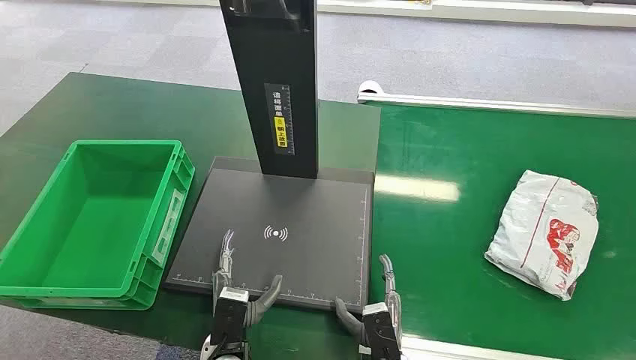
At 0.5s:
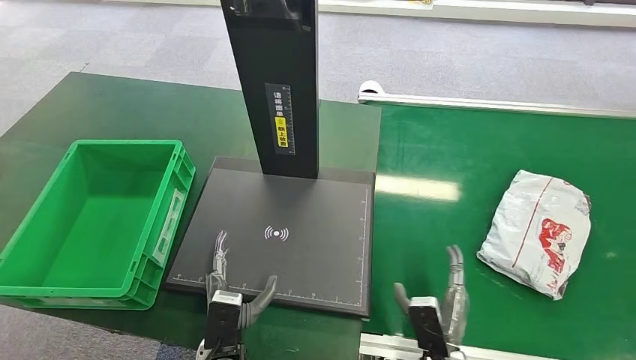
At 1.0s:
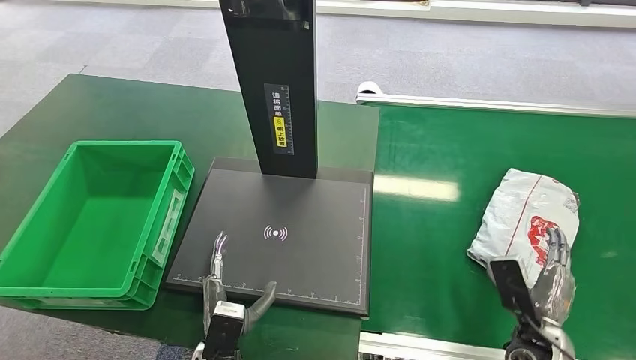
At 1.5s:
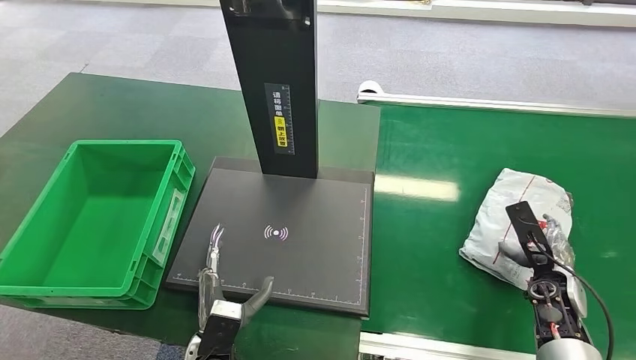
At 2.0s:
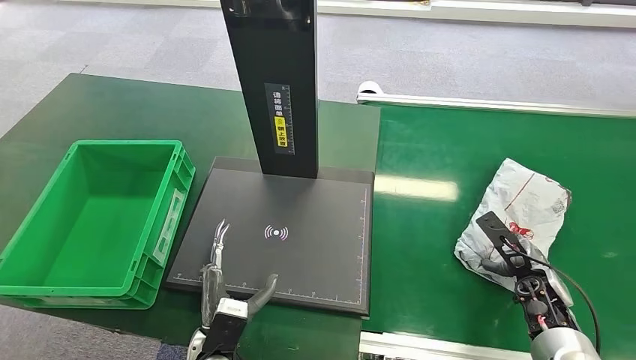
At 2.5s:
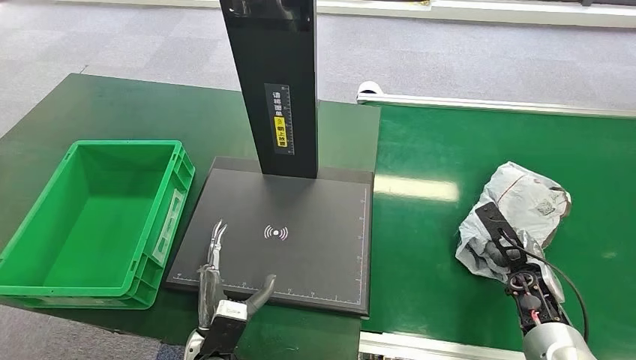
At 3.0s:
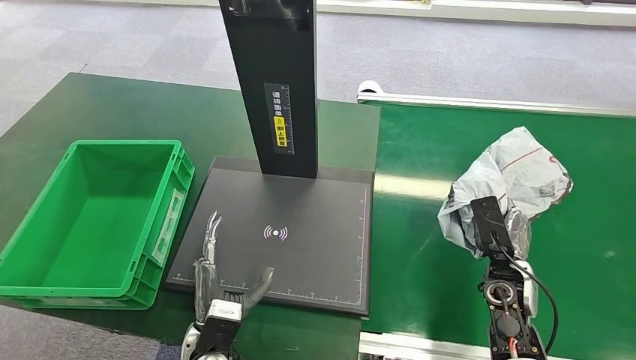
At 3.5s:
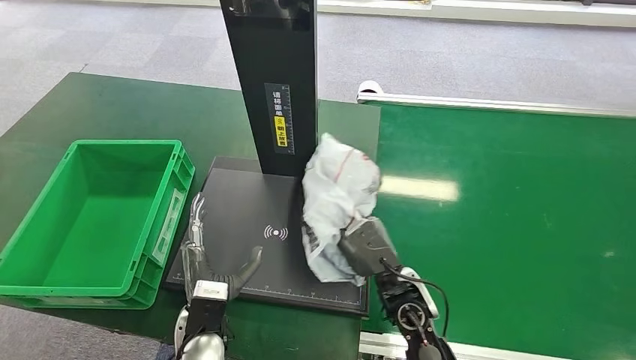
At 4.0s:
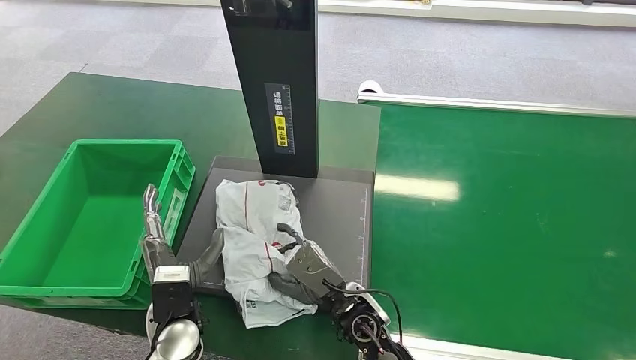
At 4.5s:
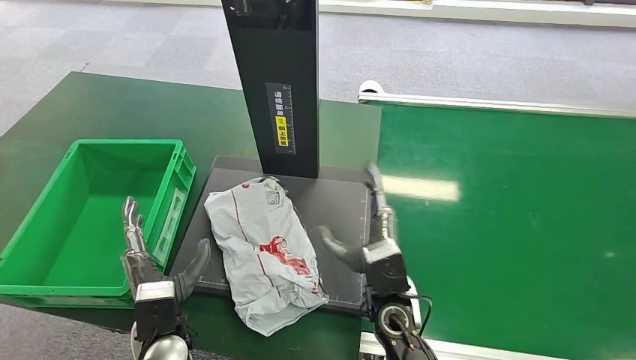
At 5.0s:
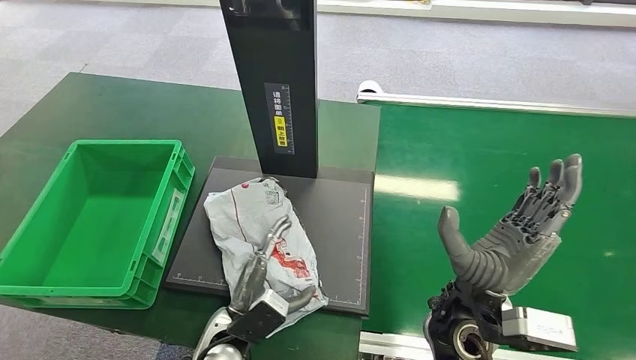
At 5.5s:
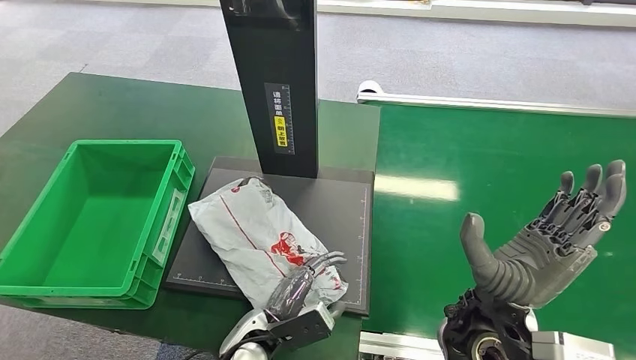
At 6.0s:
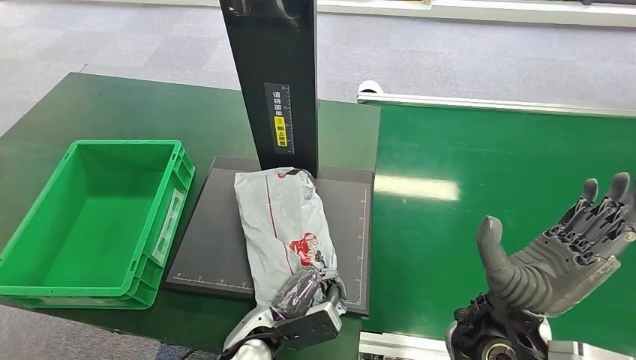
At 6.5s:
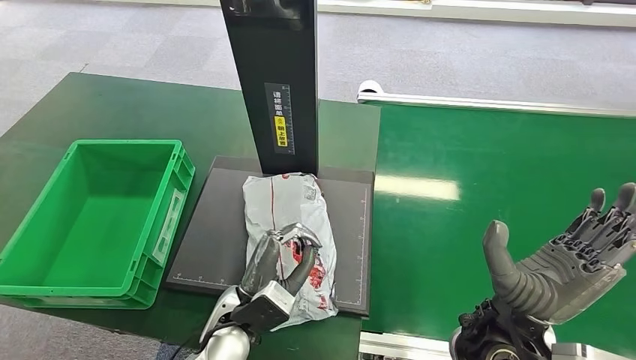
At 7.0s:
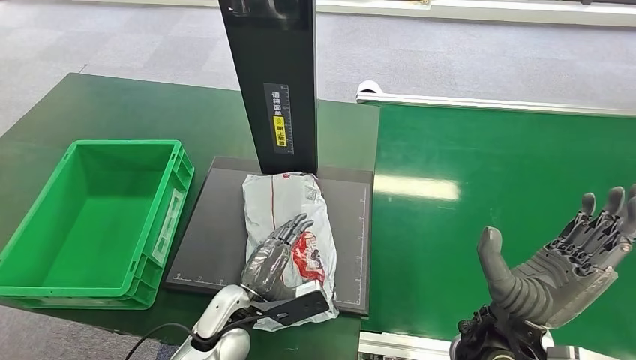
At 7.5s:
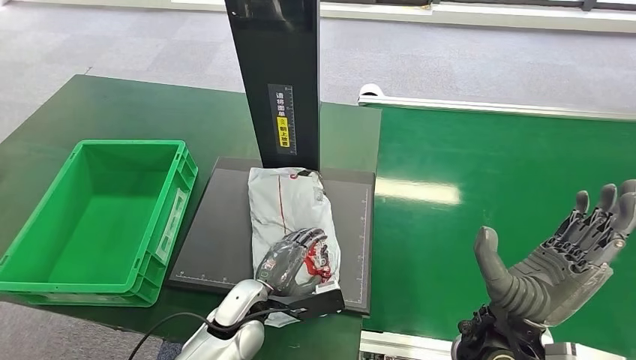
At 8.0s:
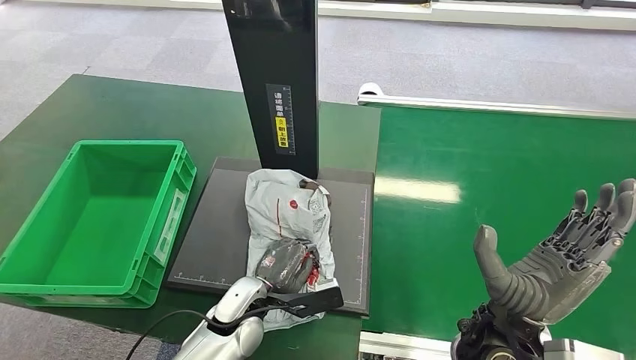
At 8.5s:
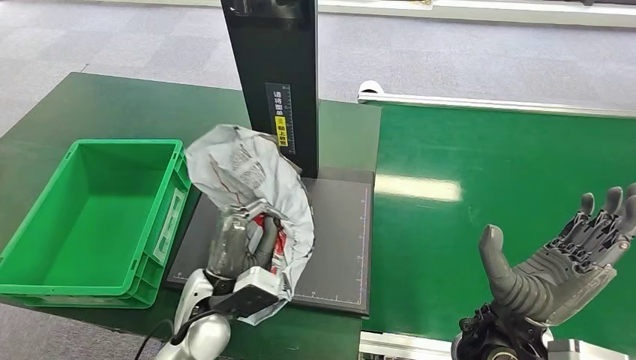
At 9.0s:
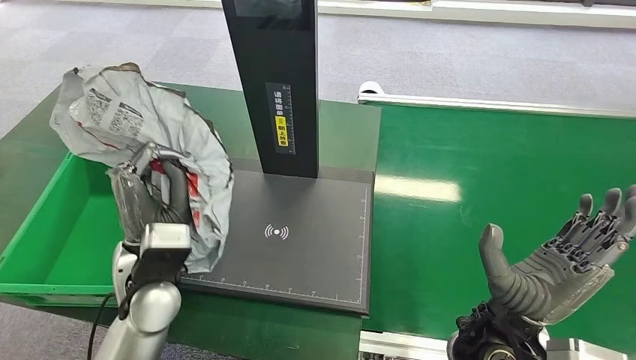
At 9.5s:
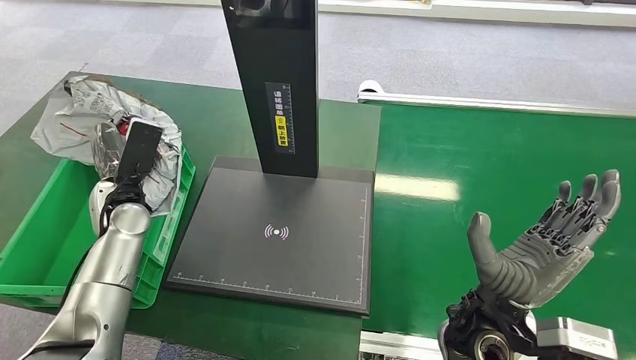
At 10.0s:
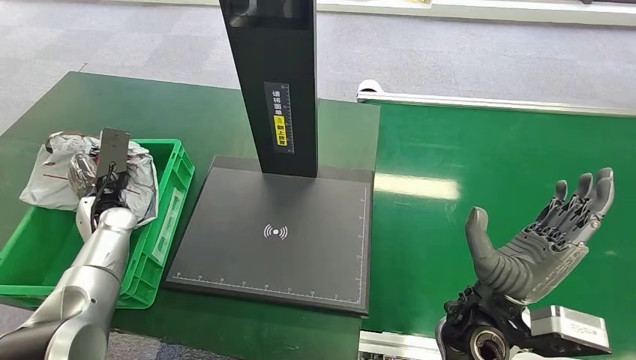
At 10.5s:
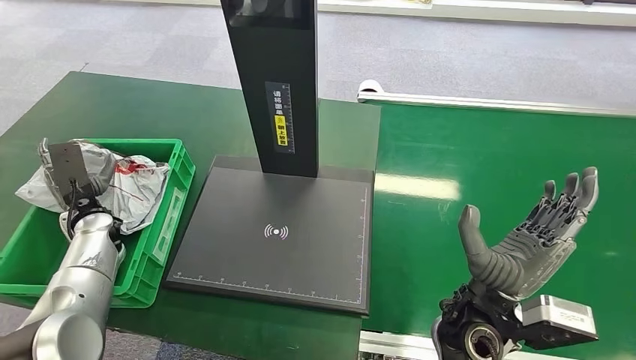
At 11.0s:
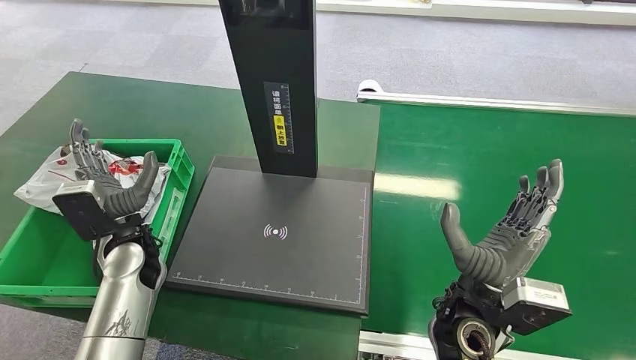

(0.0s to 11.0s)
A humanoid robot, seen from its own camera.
Step, 0.0s - 3.0s: Pick up the package from the conveyor belt.
Step, 3.5s - 4.5s: Place the package onto the inbound machine.
Step, 7.0s - 8.5s: Pick up the package from the inbound machine.
Step, 9.0s - 11.0s: Place the package into the parcel locker.
2.0s - 3.5s: The right hand is displaced to the left by roughly 30 cm.

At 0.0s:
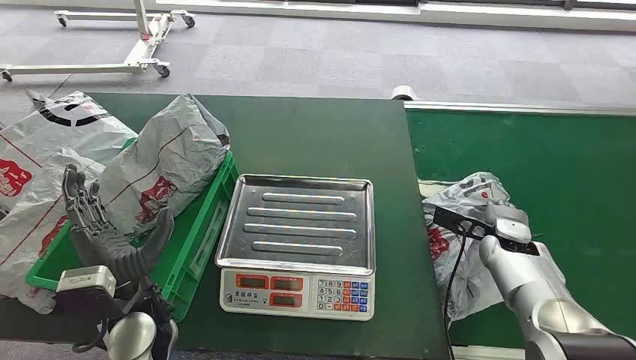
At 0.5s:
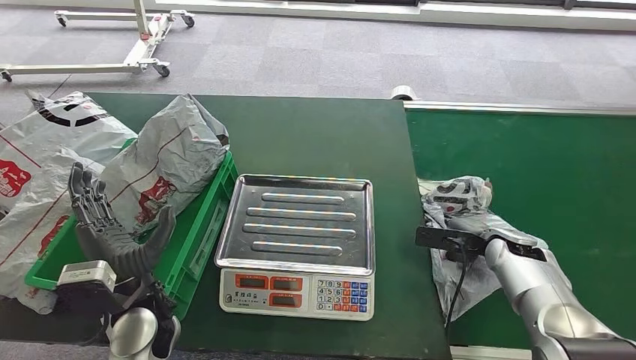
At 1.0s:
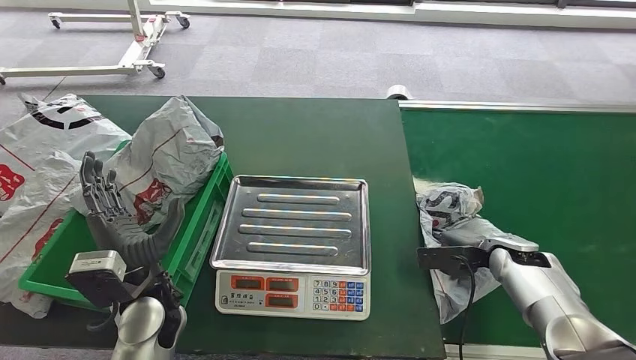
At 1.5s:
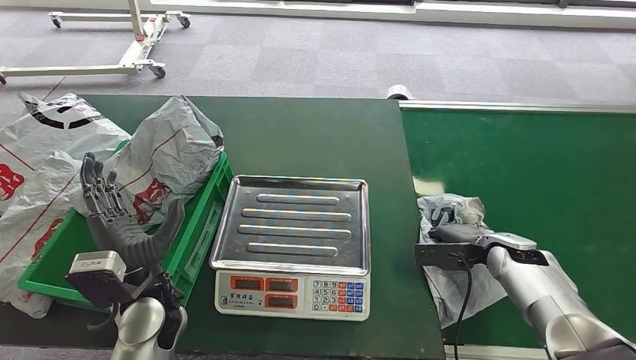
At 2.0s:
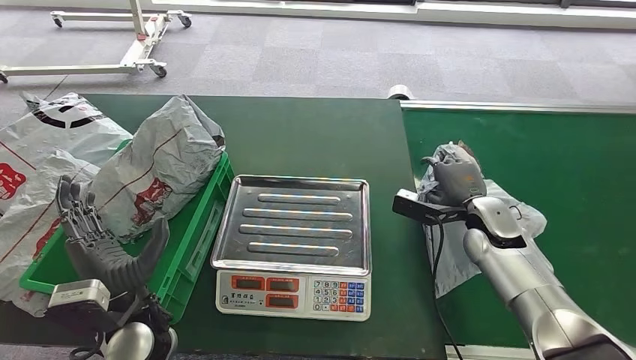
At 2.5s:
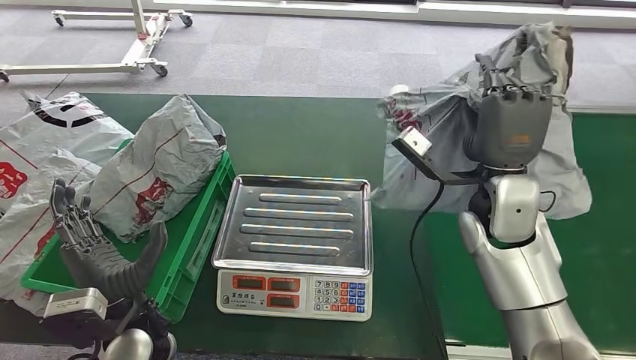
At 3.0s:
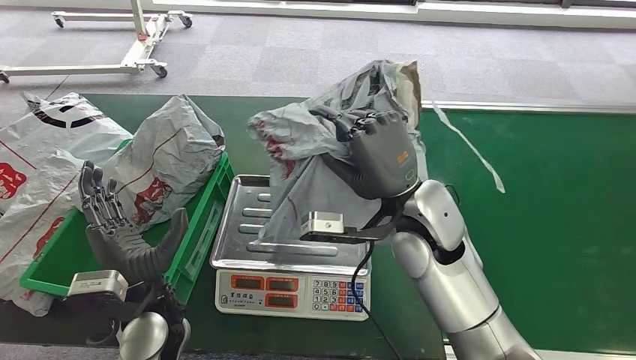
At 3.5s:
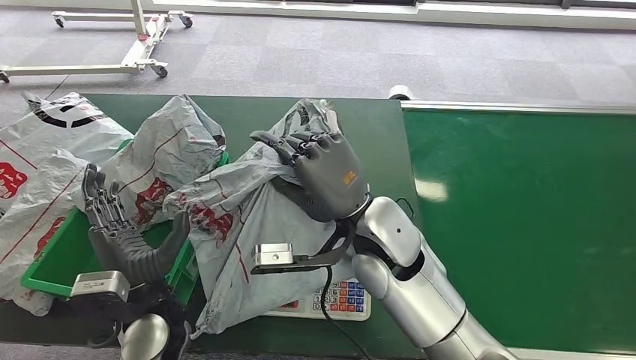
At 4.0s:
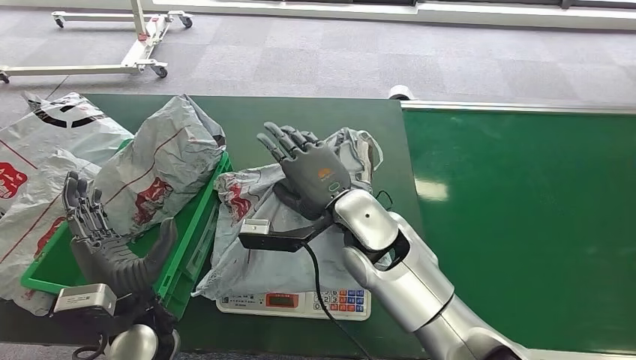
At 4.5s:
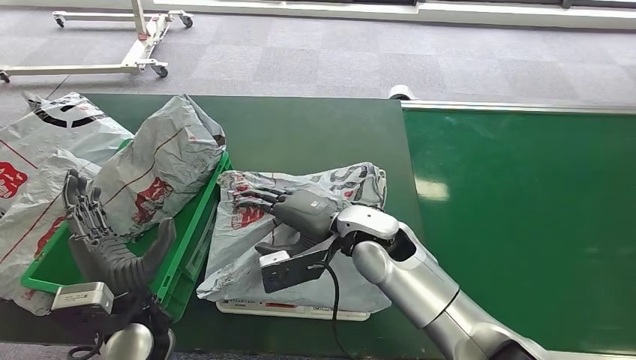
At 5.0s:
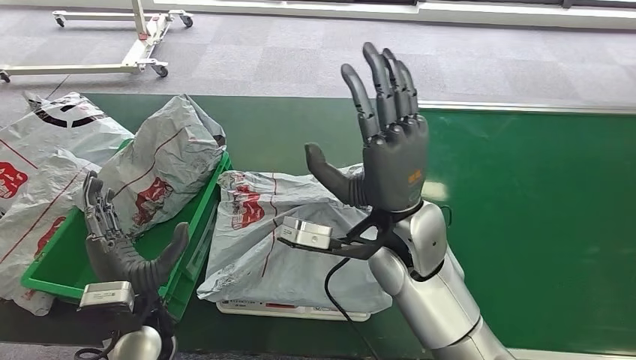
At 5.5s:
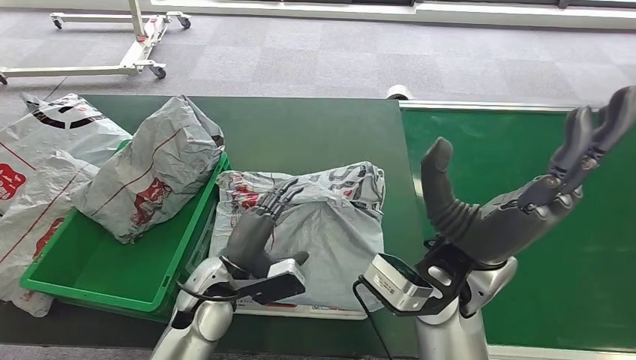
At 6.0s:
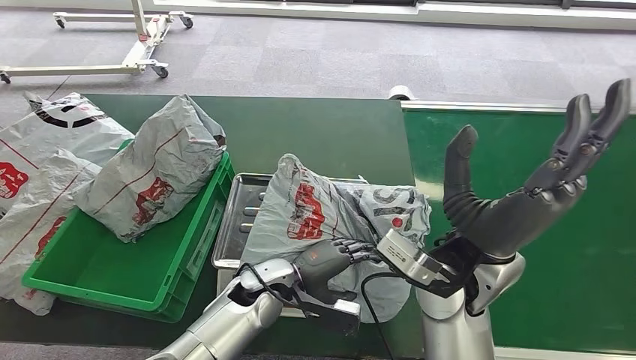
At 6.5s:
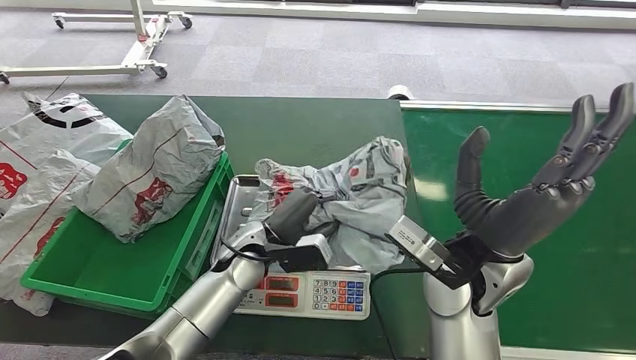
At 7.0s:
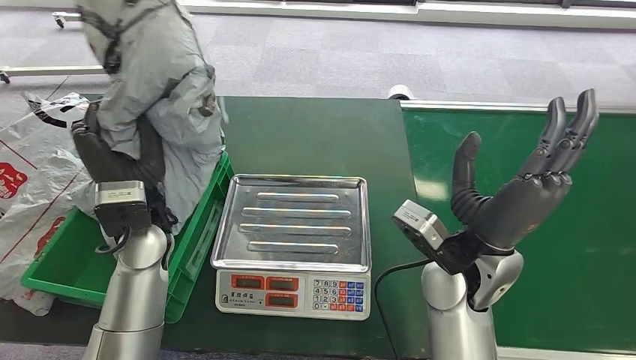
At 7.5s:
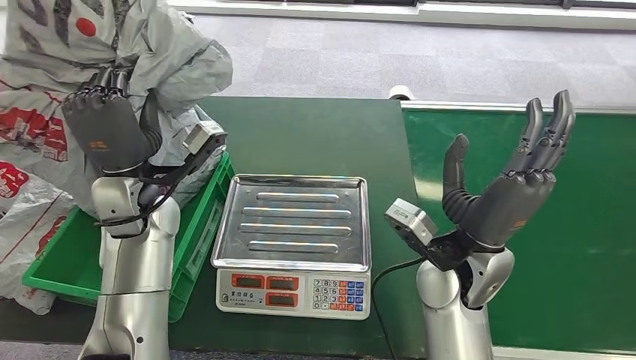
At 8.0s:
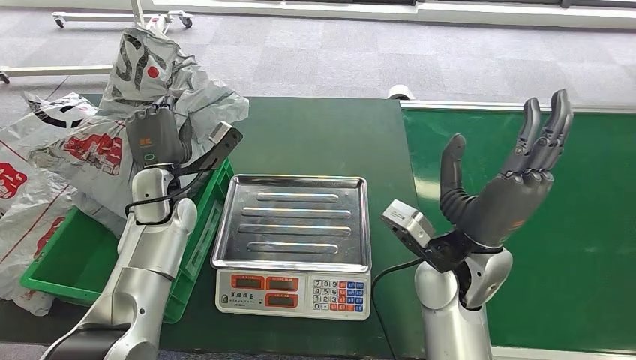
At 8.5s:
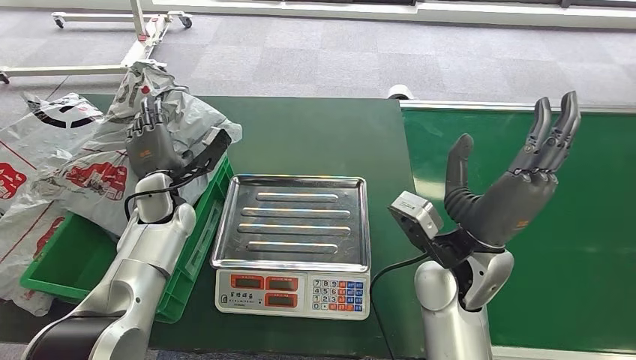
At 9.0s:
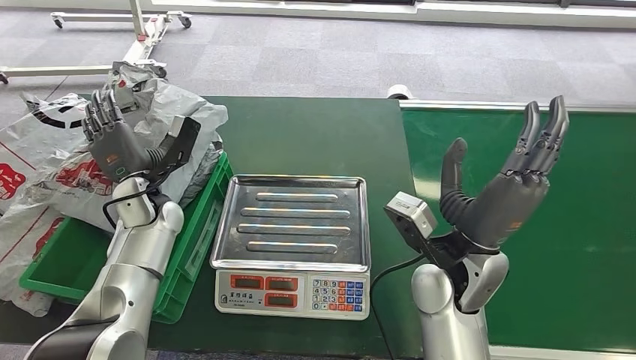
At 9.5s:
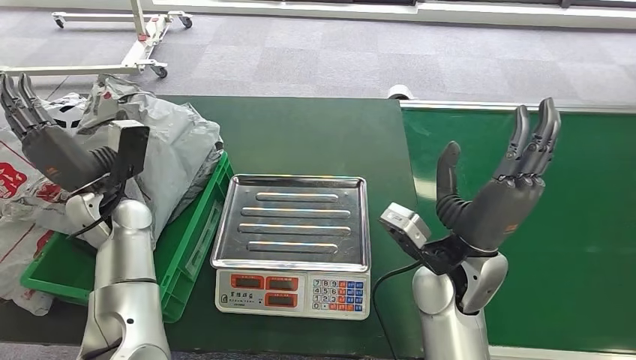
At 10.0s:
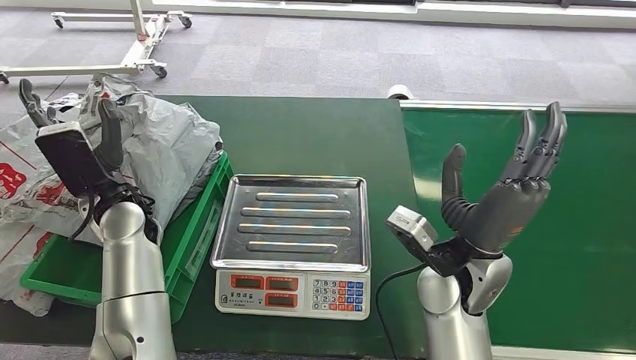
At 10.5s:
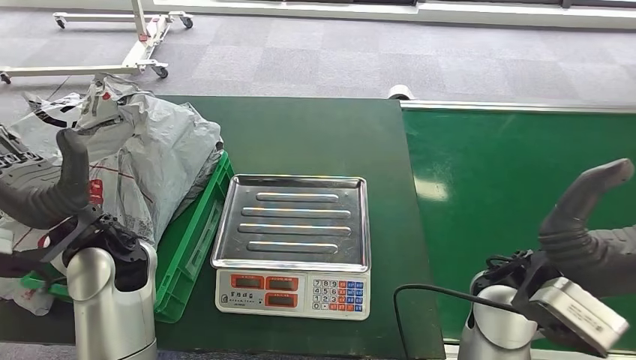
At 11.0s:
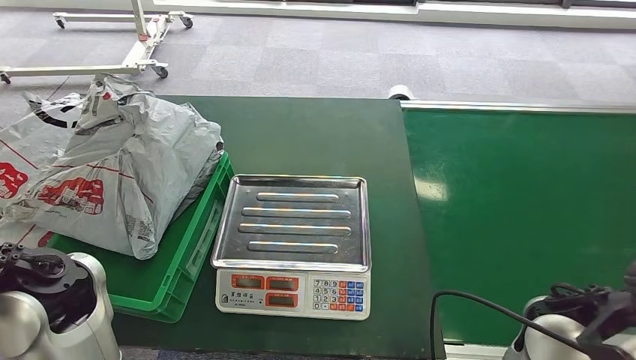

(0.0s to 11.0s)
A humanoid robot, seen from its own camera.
Step, 0.0s - 2.0s: Pick up the package from the conveyor belt.
Step, 2.5s - 5.0s: Place the package onto the inbound machine.
Step, 5.5s - 7.0s: Pick up the package from the inbound machine.
Step, 7.5s - 11.0s: Place the package into the parcel locker.
